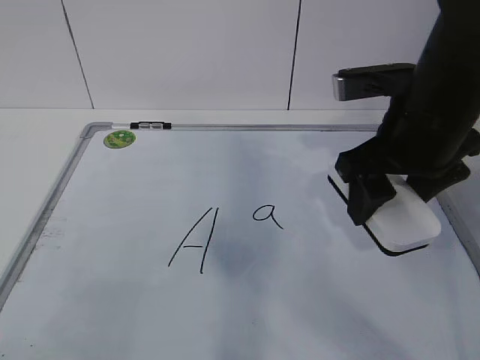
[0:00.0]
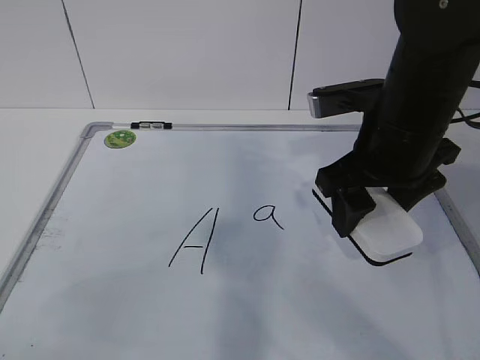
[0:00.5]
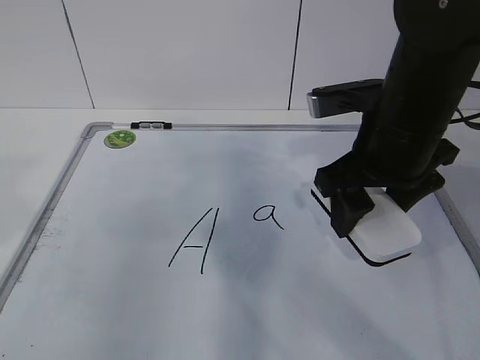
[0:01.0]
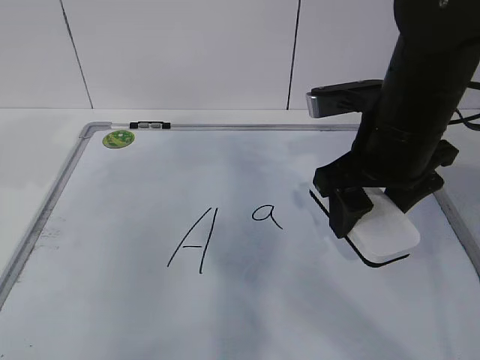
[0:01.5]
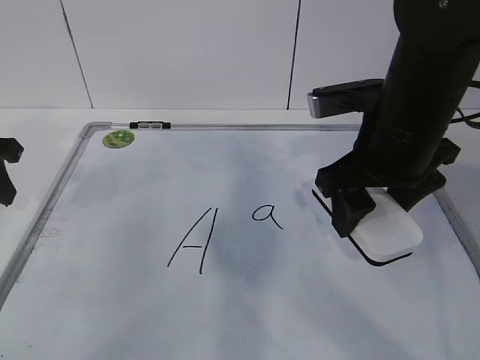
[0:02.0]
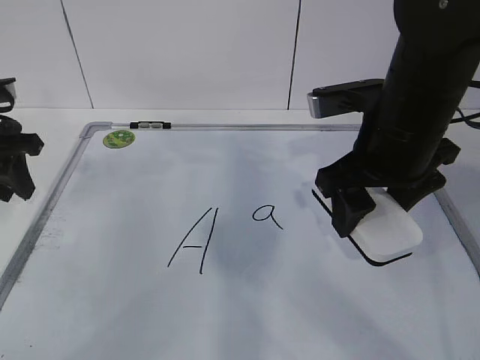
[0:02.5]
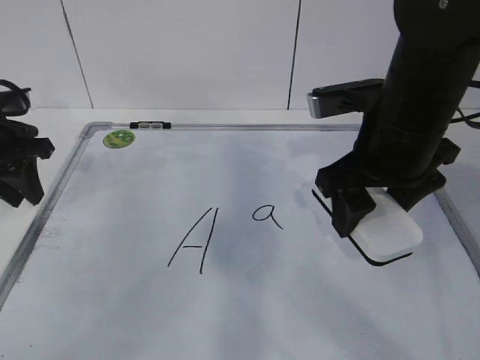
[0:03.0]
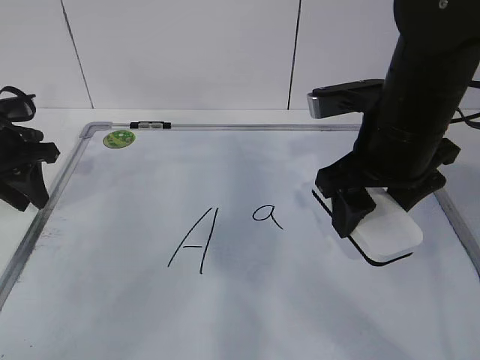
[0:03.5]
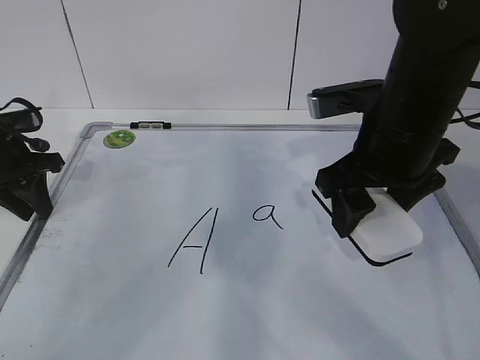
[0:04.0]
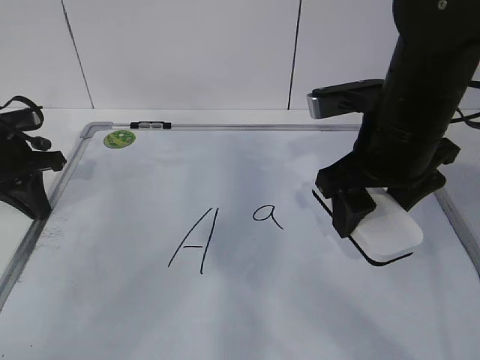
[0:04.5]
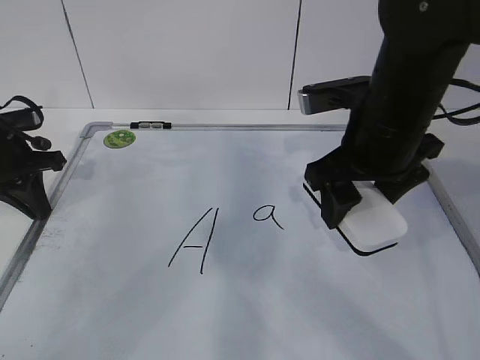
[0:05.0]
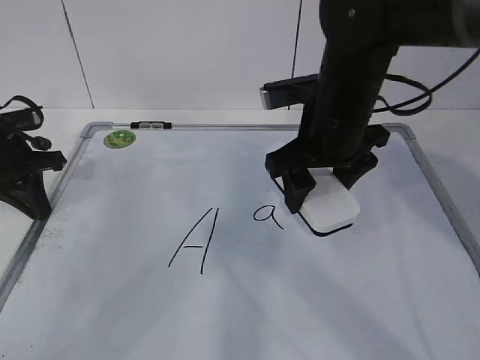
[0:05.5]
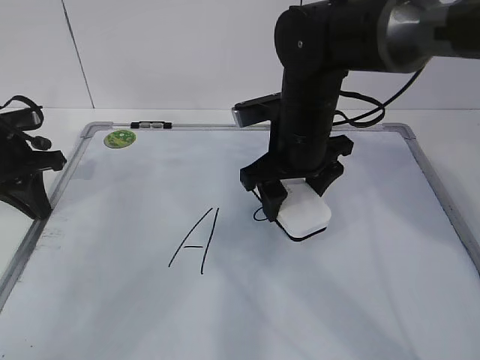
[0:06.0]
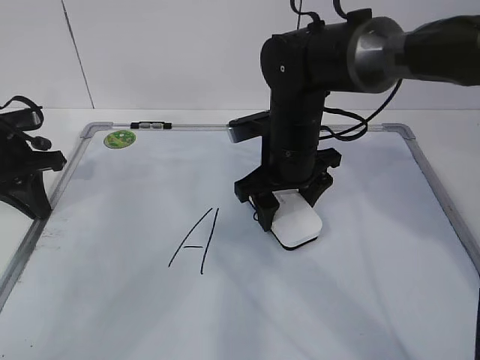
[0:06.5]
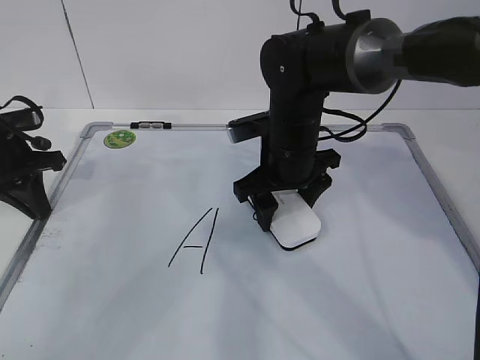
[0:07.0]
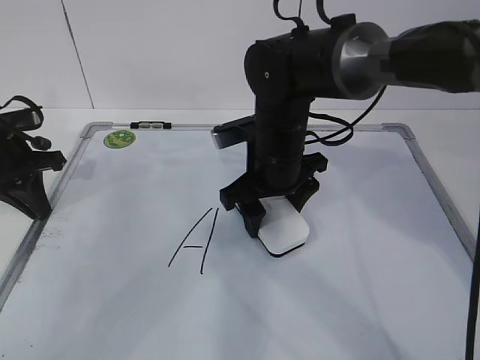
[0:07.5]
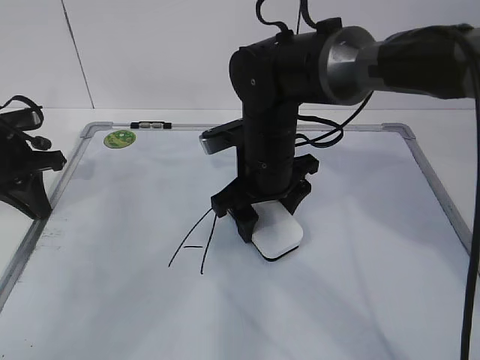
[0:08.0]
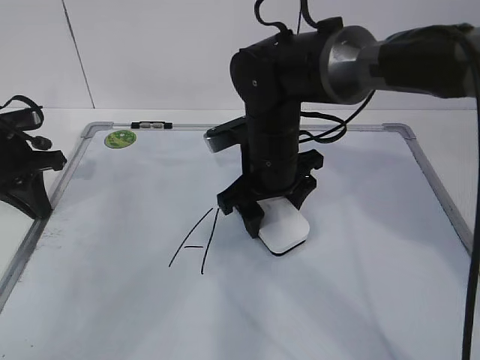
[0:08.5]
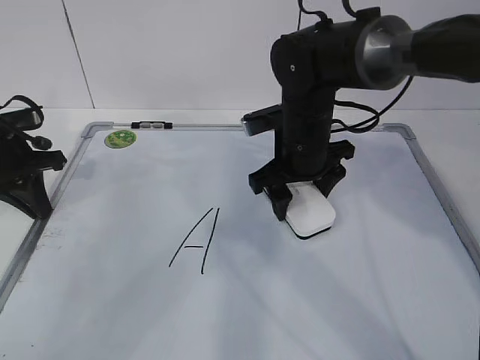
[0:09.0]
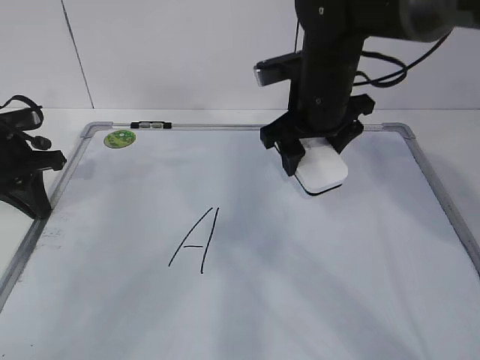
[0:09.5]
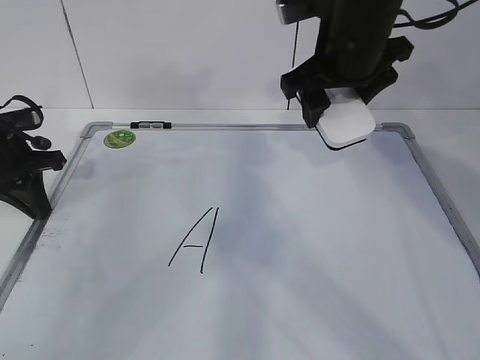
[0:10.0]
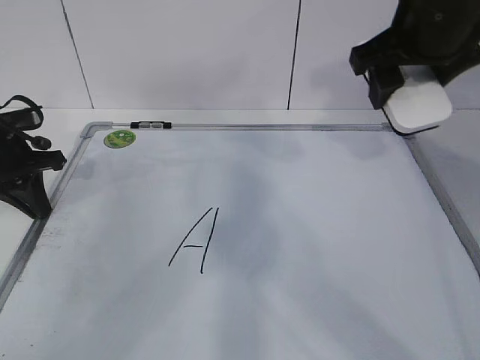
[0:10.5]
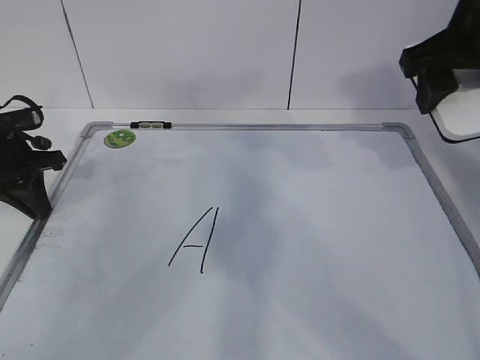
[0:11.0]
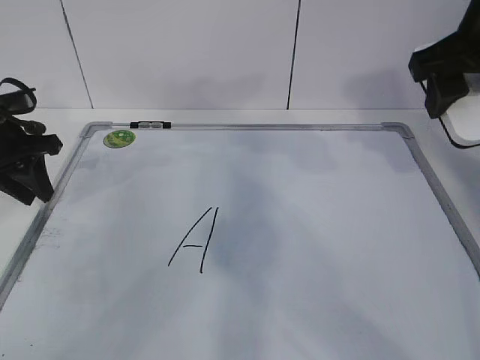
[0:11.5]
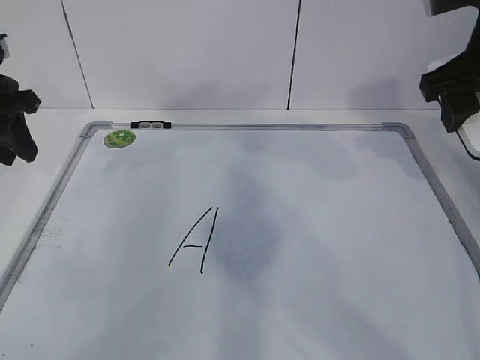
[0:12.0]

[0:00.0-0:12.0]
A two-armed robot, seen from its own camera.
Task of the whole recording: pick up the eraser on the blackboard and erase the letter "a".
0:00.0 to 0:02.0: The left gripper shifts about 30 cm forward.
0:02.0 to 0:04.0: The left gripper moves forward and downward, about 10 cm.
0:04.0 to 0:06.0: The right gripper shifts roughly 10 cm forward, to the left and downward, while the left gripper closes its fingers.
0:06.0 to 0:08.0: The grippers stay close to where they were, moving slightly.
0:08.0 to 0:10.0: The right gripper shifts about 15 cm upward and to the right.
0:10.0 to 0:12.0: The left gripper shifts about 10 cm upward, and opens its fingers. Meanwhile the right gripper is displaced to the right and backward by about 10 cm.

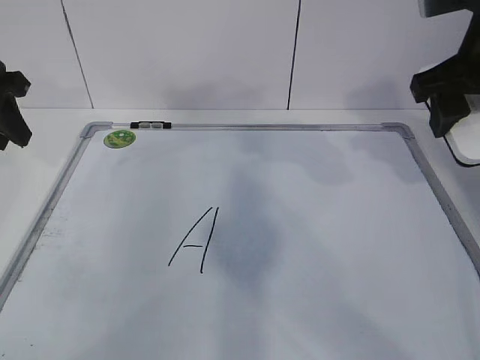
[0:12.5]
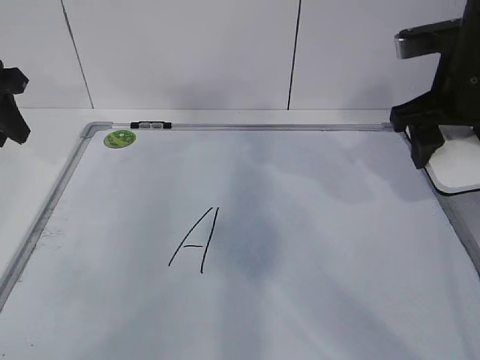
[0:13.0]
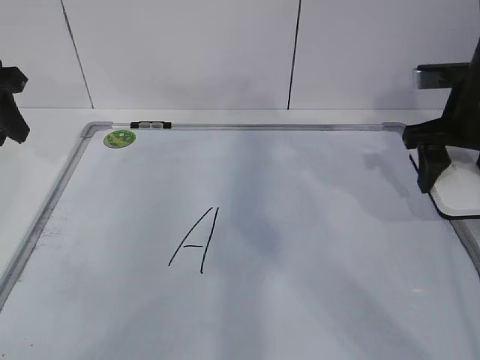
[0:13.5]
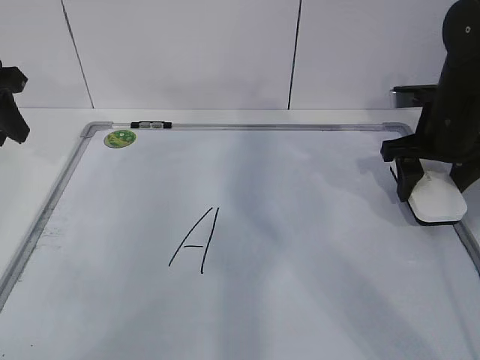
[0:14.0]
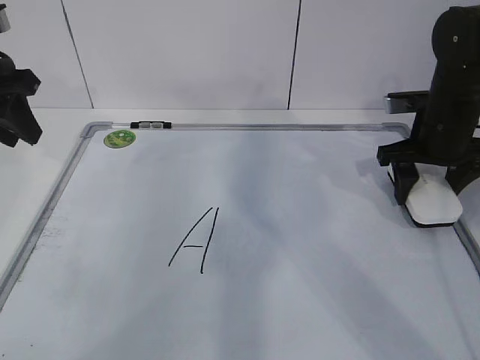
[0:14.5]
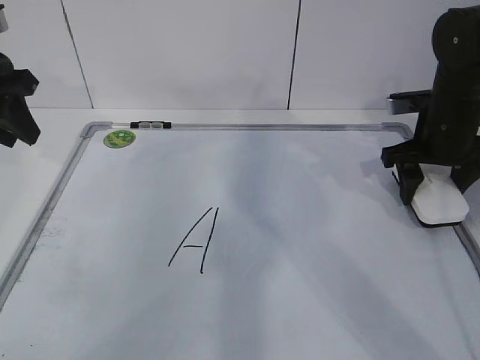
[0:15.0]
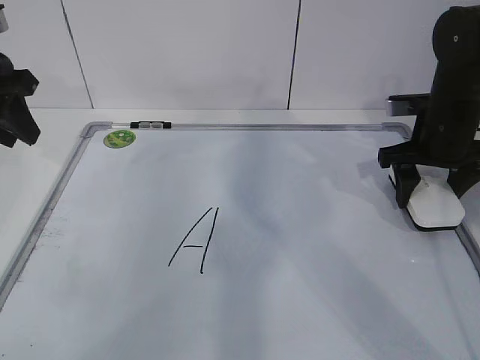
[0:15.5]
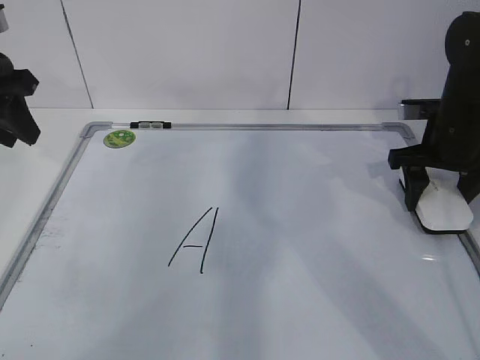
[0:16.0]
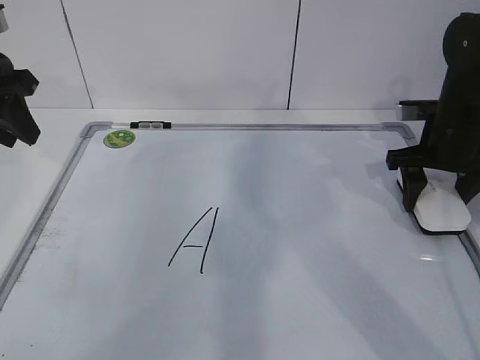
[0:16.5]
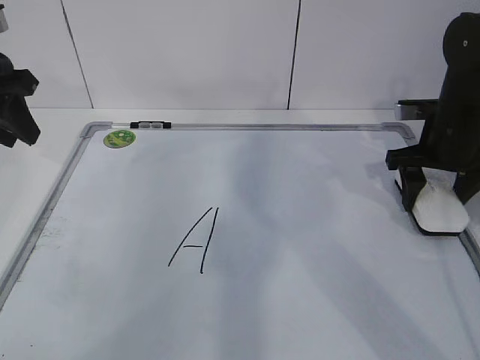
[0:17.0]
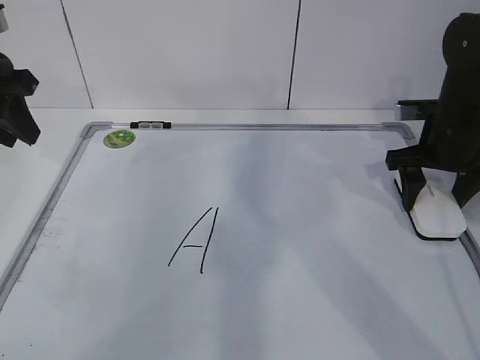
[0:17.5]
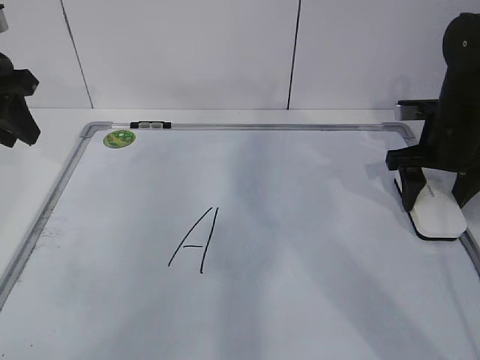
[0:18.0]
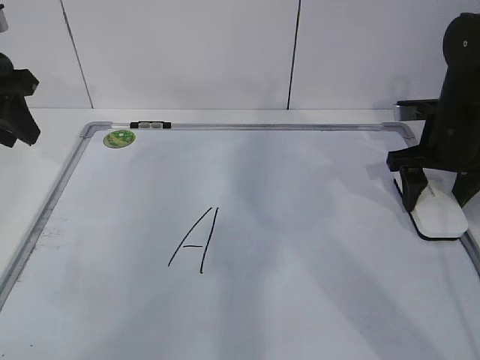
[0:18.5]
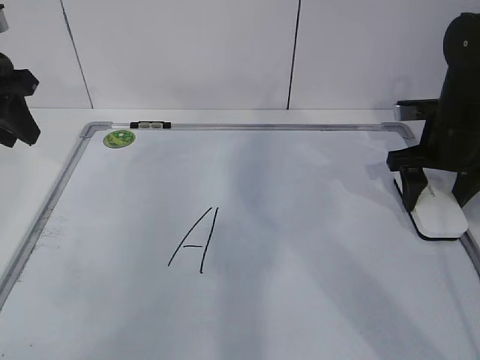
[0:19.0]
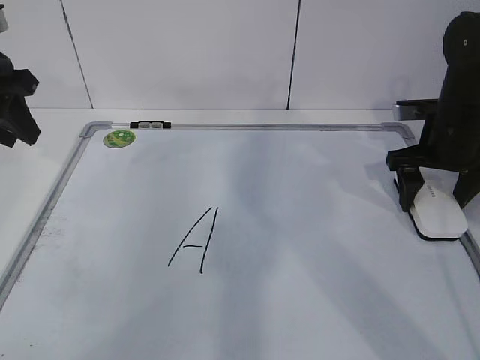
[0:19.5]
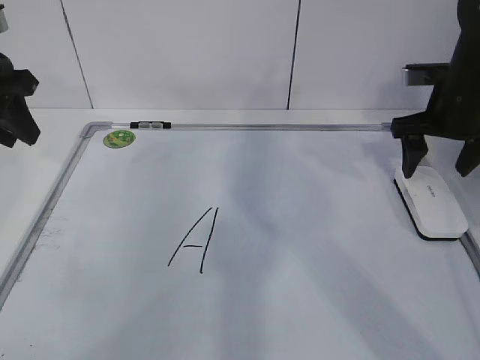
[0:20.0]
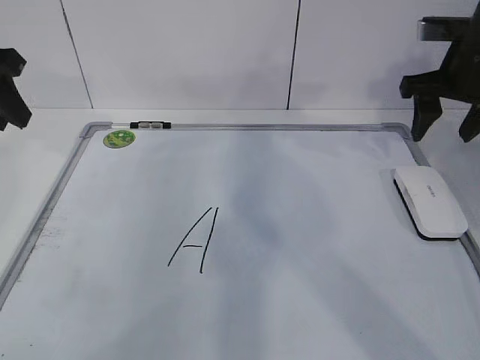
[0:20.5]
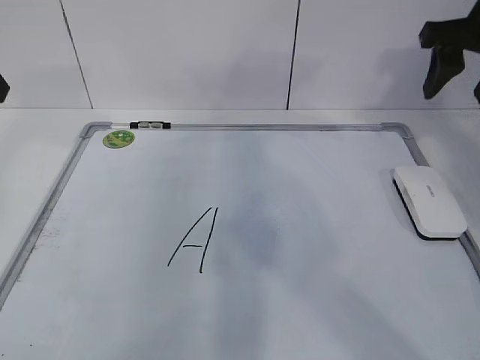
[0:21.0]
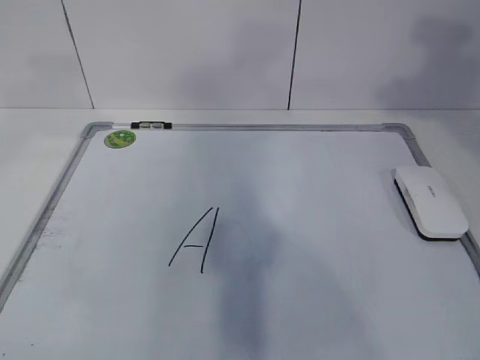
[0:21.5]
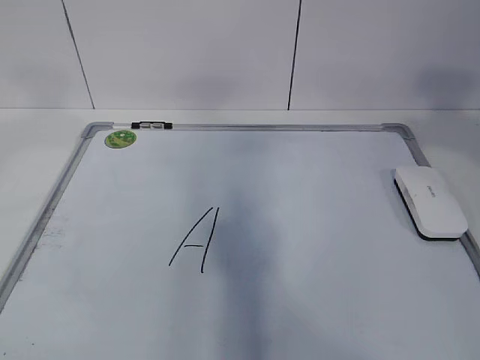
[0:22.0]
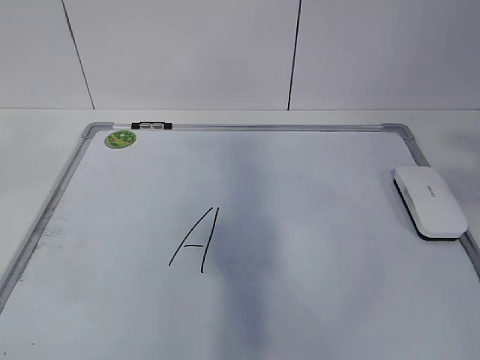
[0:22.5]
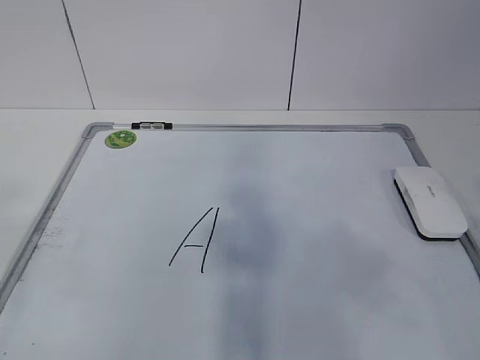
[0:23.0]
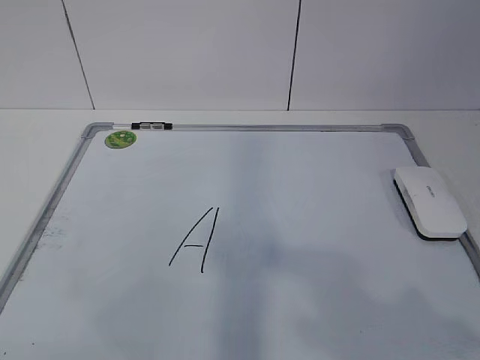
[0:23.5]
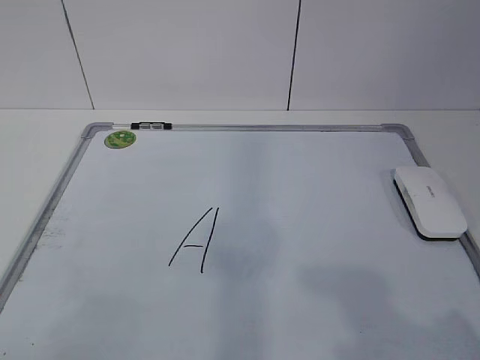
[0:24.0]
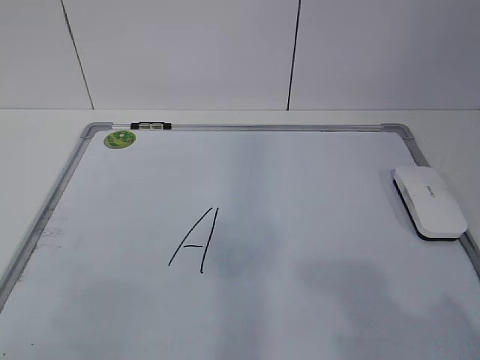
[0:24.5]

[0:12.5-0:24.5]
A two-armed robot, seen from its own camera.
Task of the whole recording: pick up the eraser on the blackboard and erase the letter "a".
0:12.5 to 0:14.5: The right gripper goes approximately 15 cm downward and forward.
0:14.5 to 0:16.5: The grippers make only small movements.
0:16.5 to 0:18.5: Both grippers stay about where they are.
0:18.5 to 0:20.5: The right gripper shifts about 10 cm upward, and opens, then closes again.
0:20.5 to 0:22.5: Both grippers travel together backward and upward, some 35 cm.
0:22.5 to 0:24.5: The two grippers go some 15 cm downward.

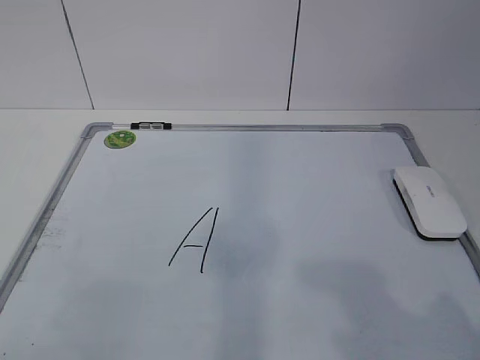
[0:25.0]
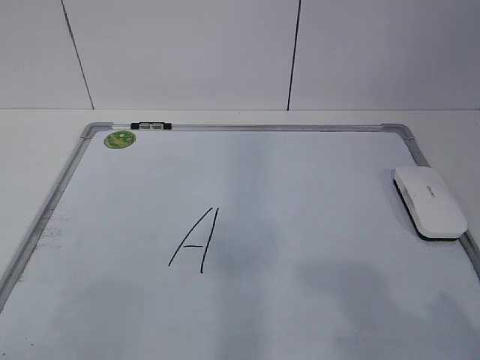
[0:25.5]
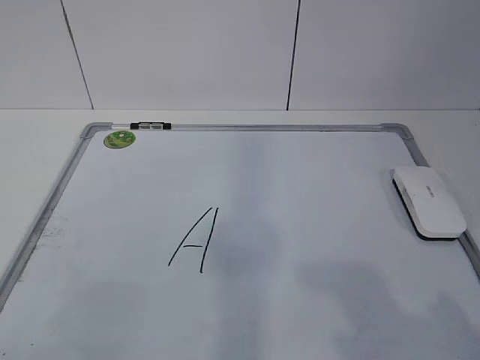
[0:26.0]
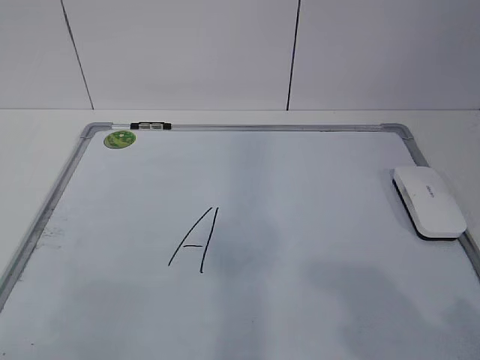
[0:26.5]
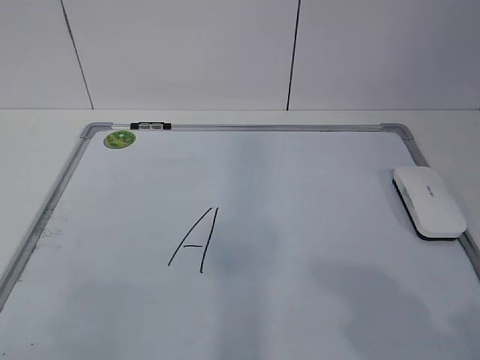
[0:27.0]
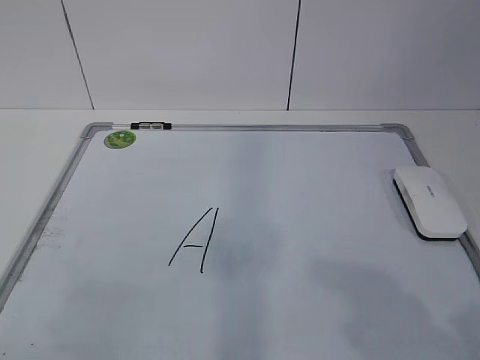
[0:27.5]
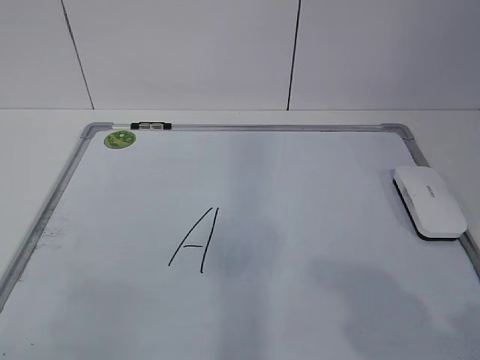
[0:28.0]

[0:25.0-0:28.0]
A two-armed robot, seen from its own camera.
Task of the whole recording: pick up the eraser on the blackboard and erase the letter "a".
0:26.5 to 0:28.0: The two grippers keep their place.
